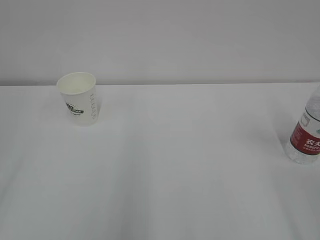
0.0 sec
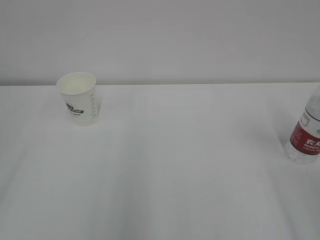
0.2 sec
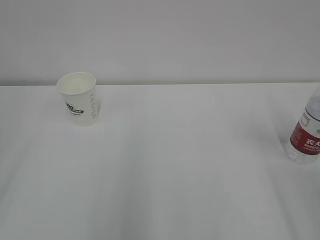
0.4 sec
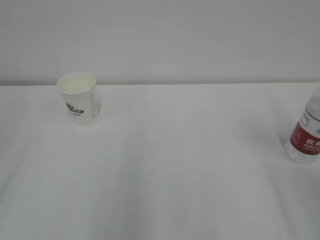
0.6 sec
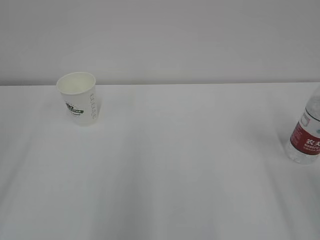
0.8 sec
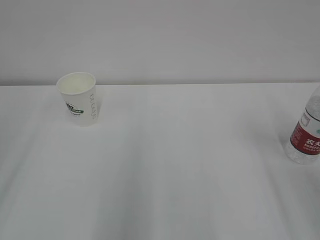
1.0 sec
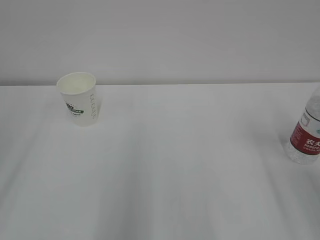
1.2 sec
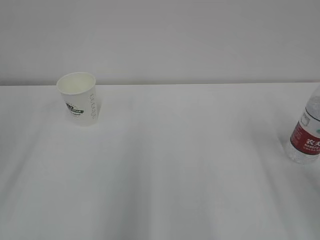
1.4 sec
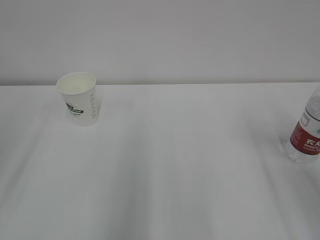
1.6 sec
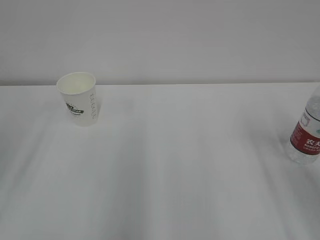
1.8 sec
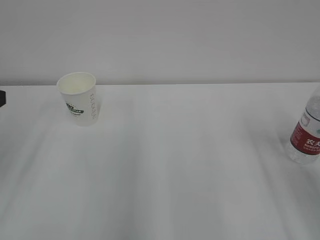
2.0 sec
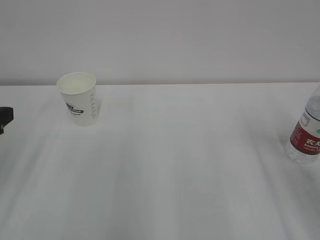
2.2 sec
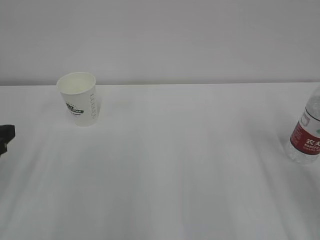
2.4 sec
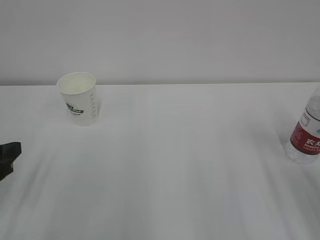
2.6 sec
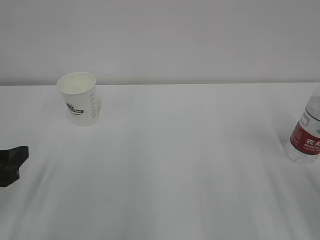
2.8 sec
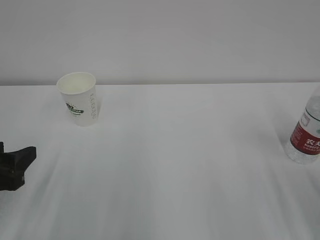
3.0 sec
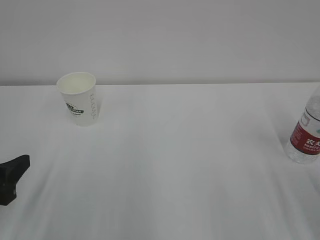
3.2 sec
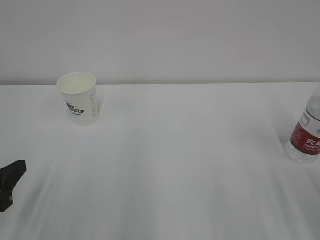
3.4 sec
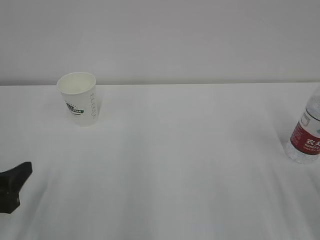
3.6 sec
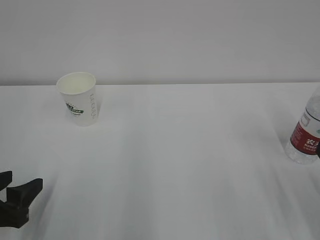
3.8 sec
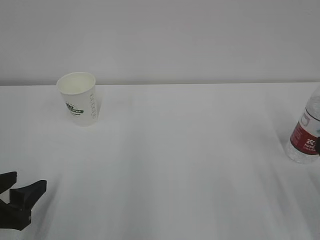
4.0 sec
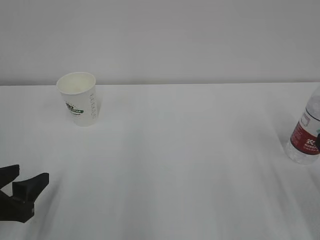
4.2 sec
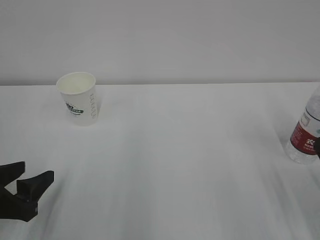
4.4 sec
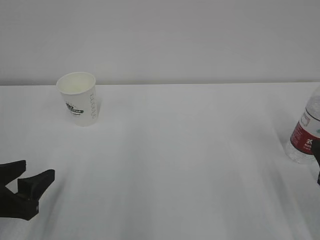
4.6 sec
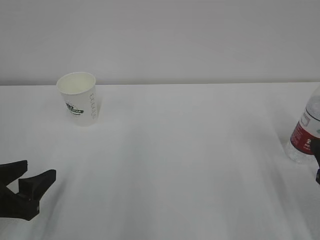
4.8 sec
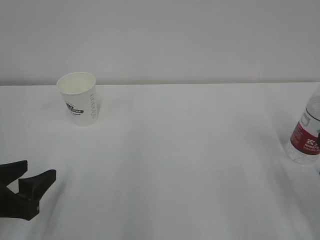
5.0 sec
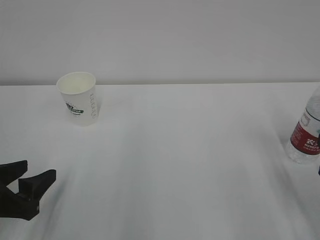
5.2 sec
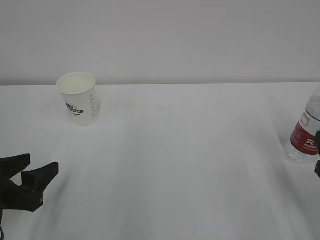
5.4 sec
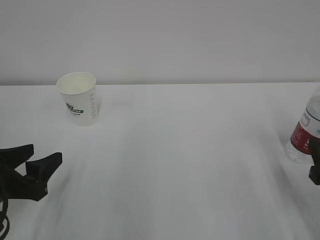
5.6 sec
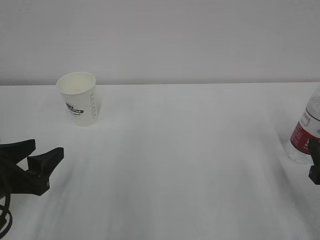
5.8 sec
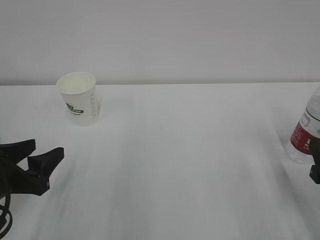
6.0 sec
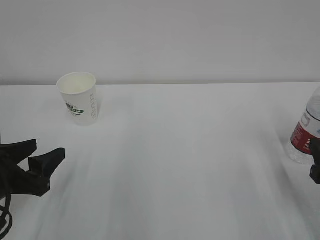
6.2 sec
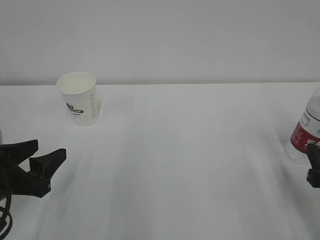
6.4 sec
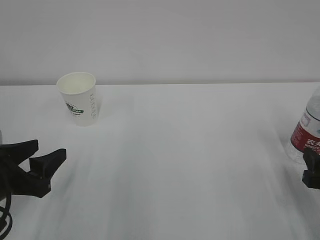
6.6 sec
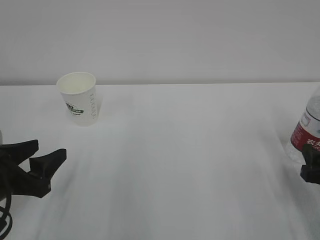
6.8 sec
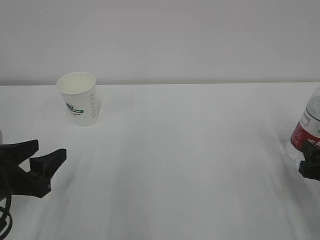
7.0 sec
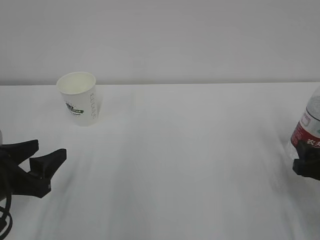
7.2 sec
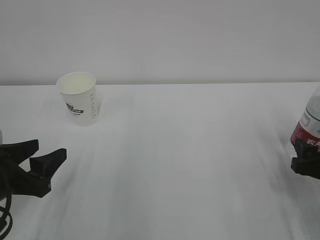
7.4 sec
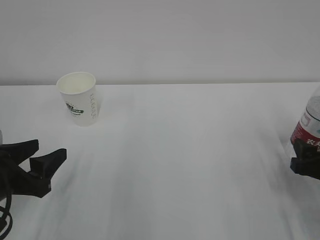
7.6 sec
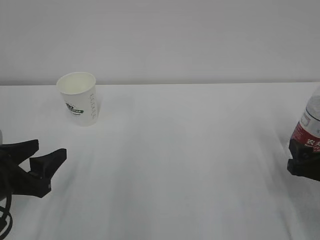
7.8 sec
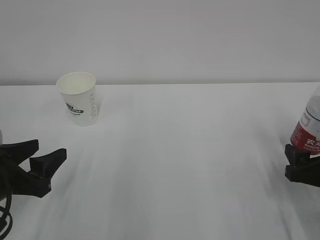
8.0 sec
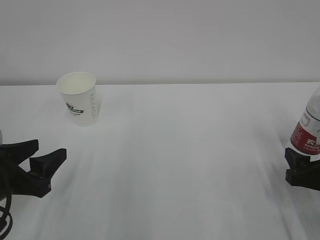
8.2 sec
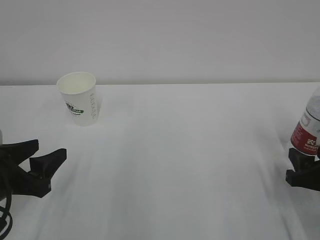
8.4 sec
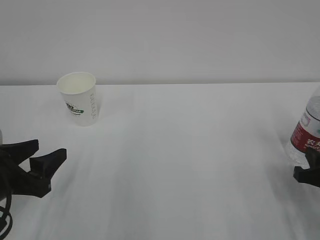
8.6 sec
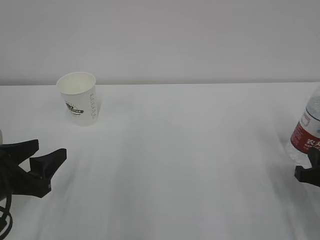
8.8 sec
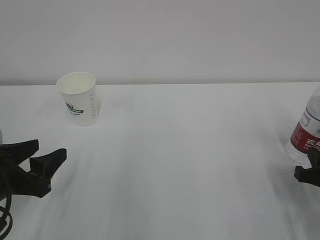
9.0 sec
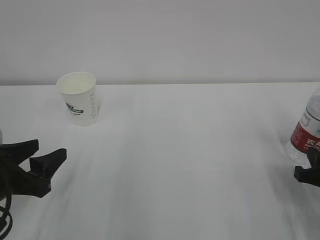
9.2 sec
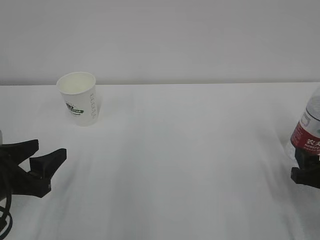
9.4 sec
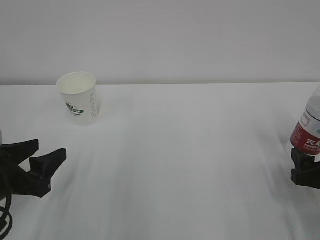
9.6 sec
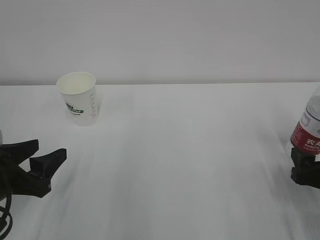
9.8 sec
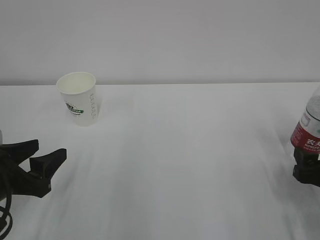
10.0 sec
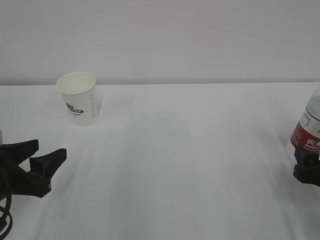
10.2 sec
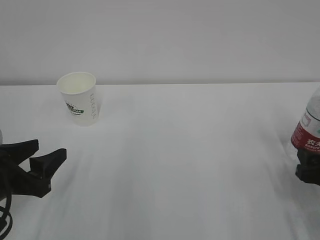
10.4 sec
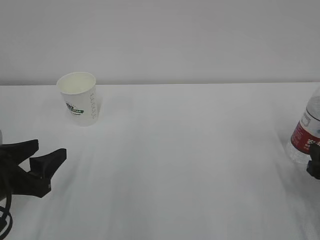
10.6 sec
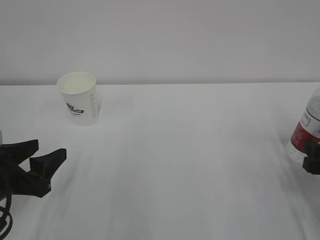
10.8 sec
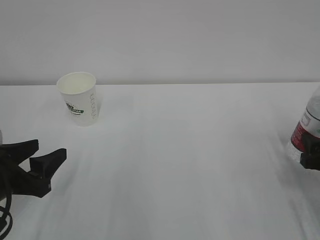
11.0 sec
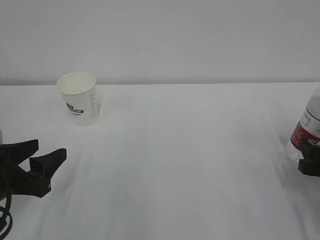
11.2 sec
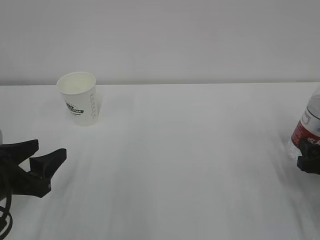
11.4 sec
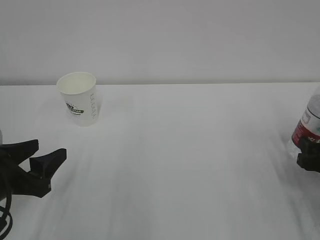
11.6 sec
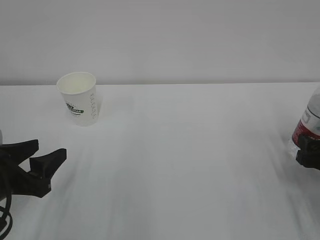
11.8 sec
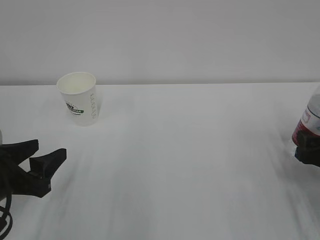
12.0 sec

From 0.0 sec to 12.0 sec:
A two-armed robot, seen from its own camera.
From 1.6 sec to 3.0 sec: The left gripper shifts about 15 cm downward.
From 3.0 sec to 4.4 sec: The grippers make only small movements.
From 4.4 sec to 6.0 sec: The grippers make only small movements.
From 6.0 sec to 7.6 sec: The right gripper moves some 5 cm.
From 7.6 sec to 9.0 sec: The right gripper closes its fingers.
From 10.4 sec to 12.0 sec: The grippers move only a little.

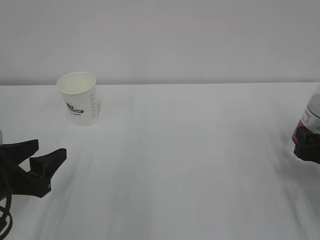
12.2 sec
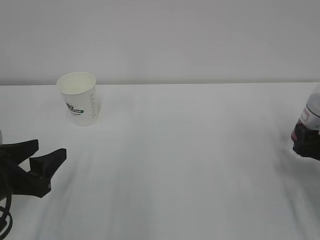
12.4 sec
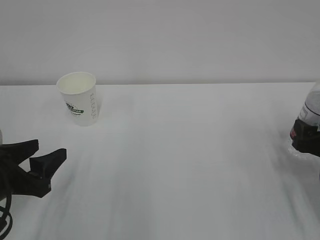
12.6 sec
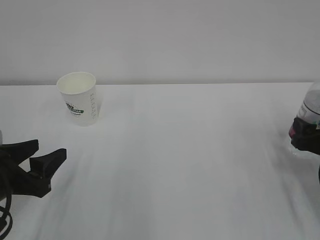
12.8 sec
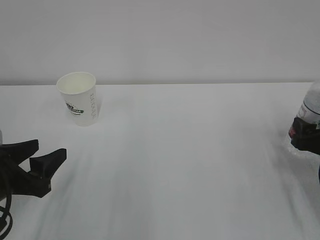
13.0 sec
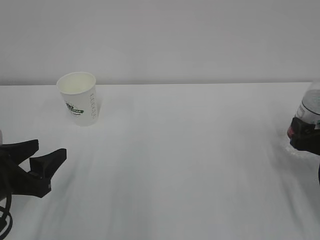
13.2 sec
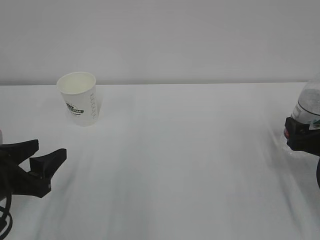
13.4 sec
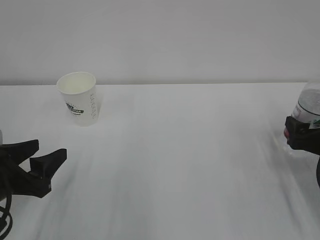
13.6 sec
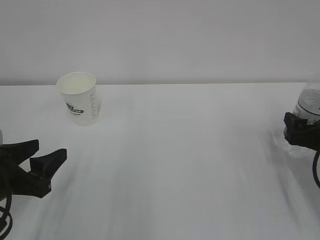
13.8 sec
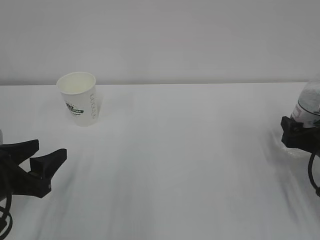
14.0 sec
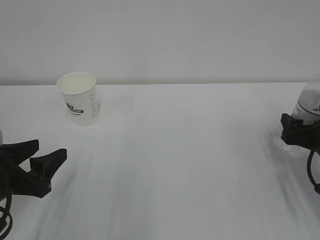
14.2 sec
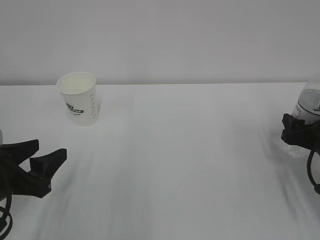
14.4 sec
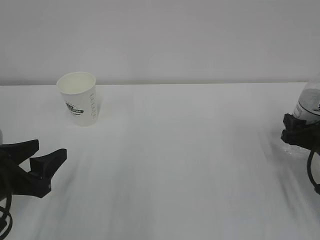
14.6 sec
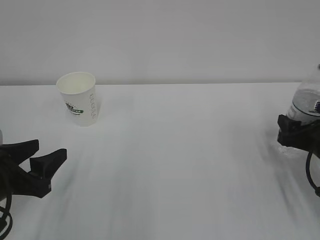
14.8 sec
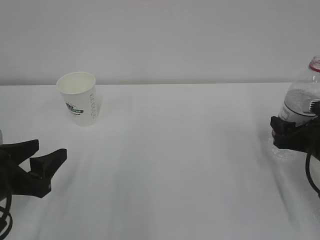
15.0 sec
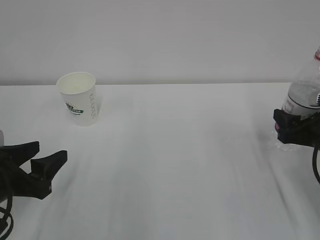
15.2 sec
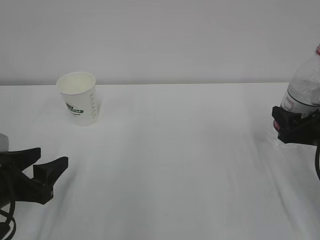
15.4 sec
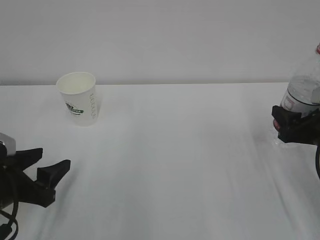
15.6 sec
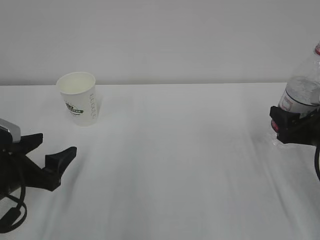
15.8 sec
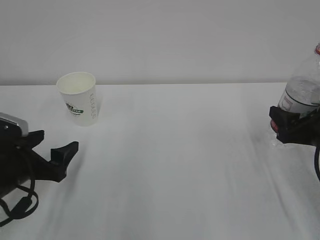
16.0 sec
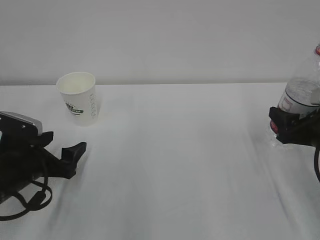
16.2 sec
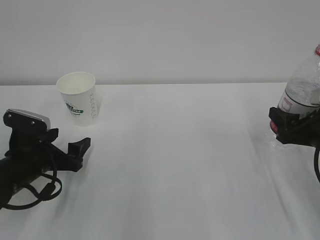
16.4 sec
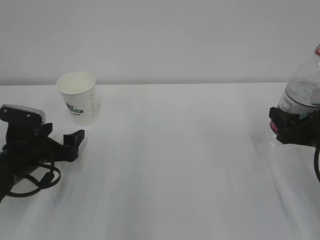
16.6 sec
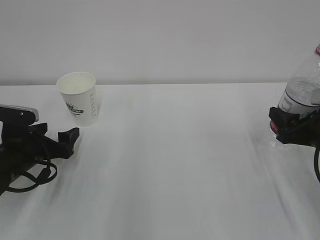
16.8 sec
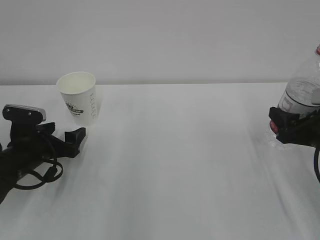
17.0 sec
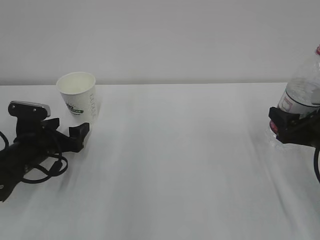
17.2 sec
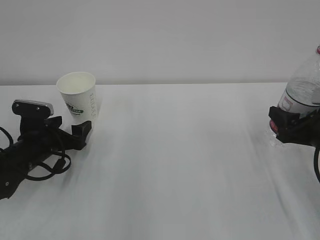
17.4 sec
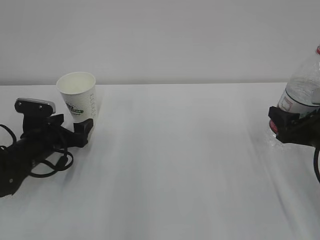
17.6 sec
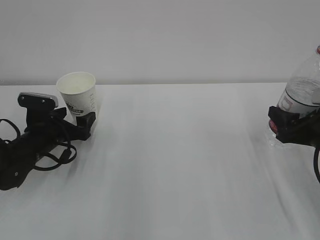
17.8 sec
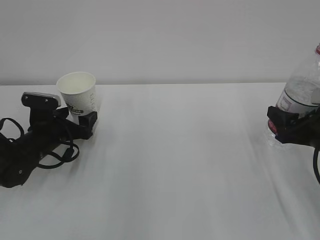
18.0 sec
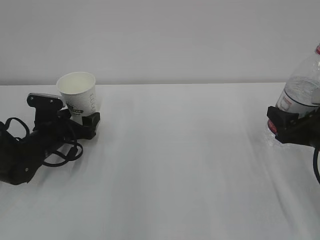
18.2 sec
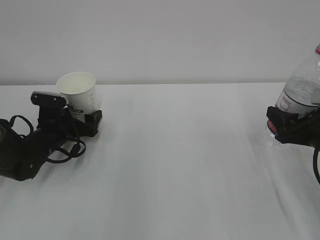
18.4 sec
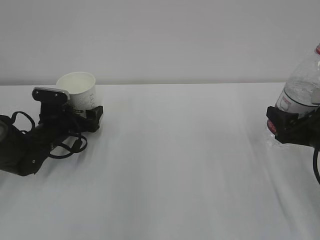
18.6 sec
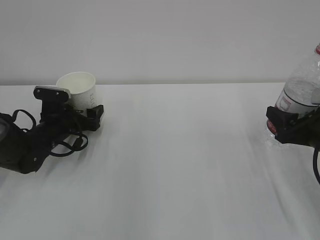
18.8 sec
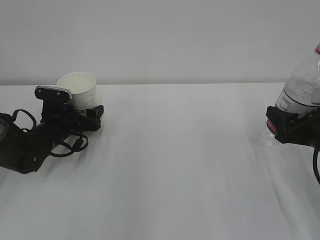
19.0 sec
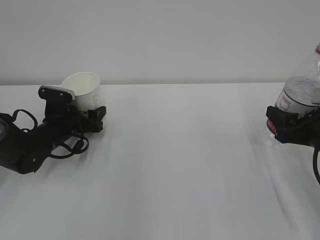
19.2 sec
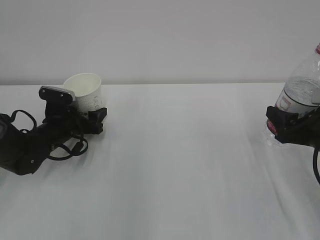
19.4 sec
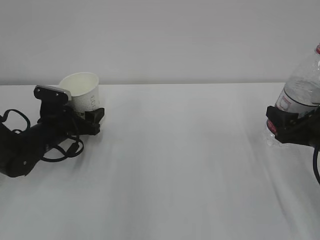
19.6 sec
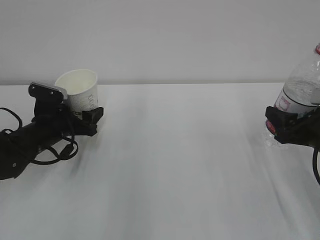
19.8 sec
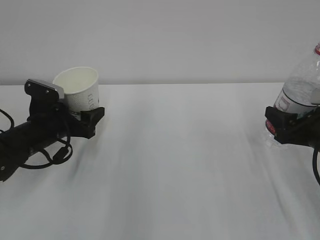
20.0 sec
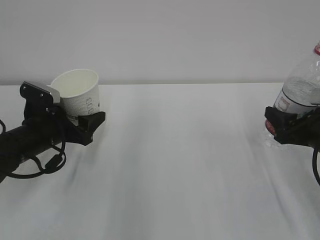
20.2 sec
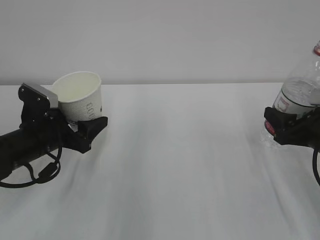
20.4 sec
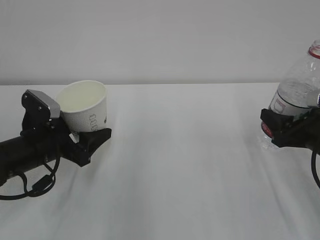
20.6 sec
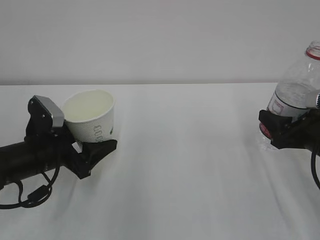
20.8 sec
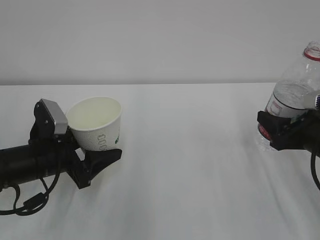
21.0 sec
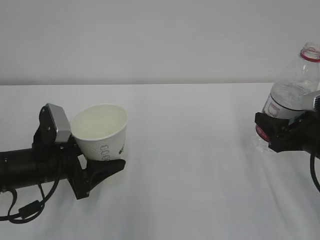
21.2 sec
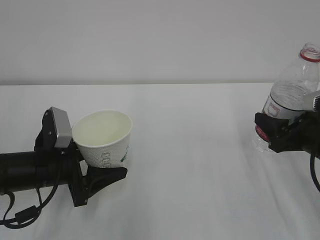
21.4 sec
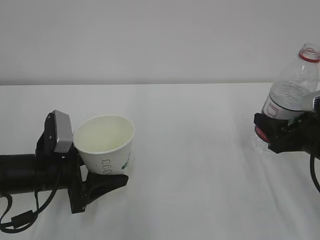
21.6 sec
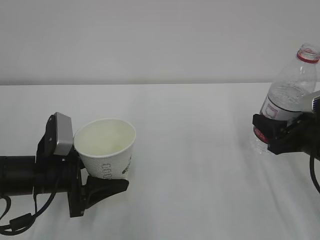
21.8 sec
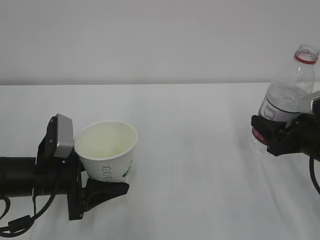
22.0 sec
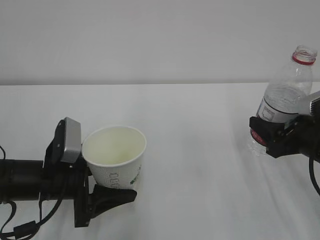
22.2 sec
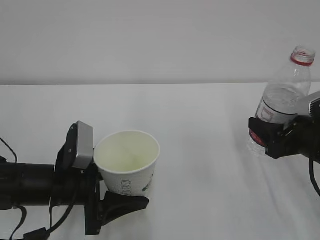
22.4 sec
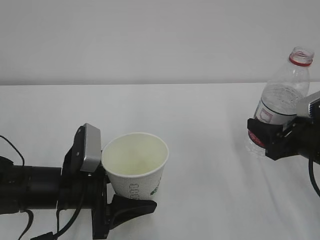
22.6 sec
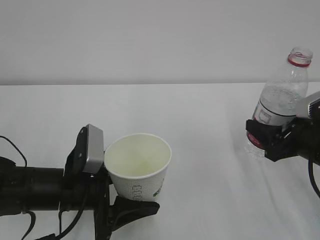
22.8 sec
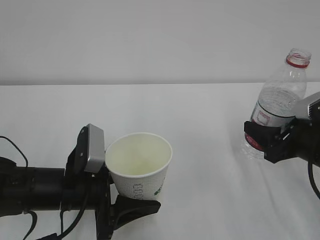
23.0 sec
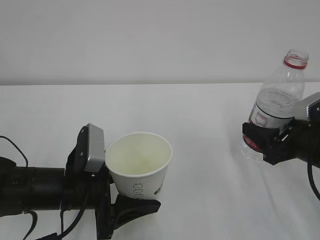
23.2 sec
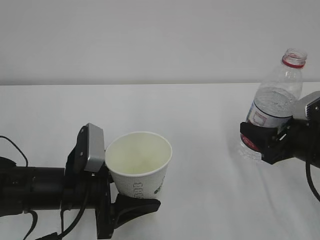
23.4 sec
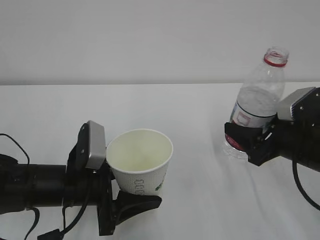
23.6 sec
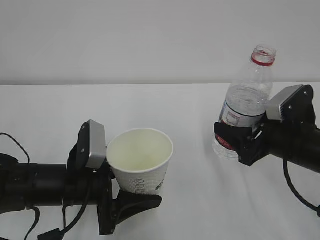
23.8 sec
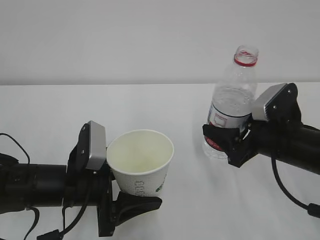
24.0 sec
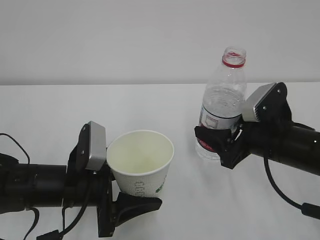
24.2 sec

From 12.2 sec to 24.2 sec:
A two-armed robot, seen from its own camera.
From 12.2 sec to 13.8 sec: The right gripper opens up.
From 13.8 sec to 15.2 sec: The right gripper closes up.
From 15.2 sec to 16.6 sec: The left gripper goes roughly 10 cm forward, and opens its fingers.
From 16.6 sec to 18.2 sec: The left gripper travels forward by roughly 10 cm.
From 18.2 sec to 19.8 sec: The left gripper closes.
From 19.8 sec to 21.2 sec: The left gripper shifts about 10 cm backward.
From 21.2 sec to 22.6 sec: The left gripper moves to the right, roughly 5 cm.
From 22.6 sec to 24.2 sec: The right gripper goes about 10 cm to the left.
